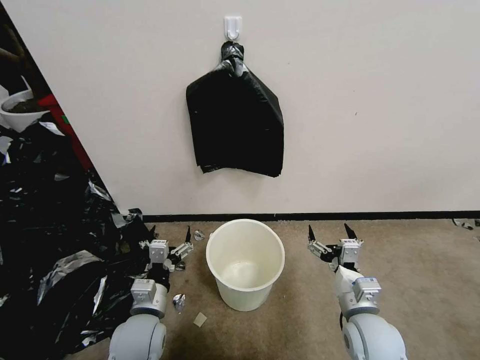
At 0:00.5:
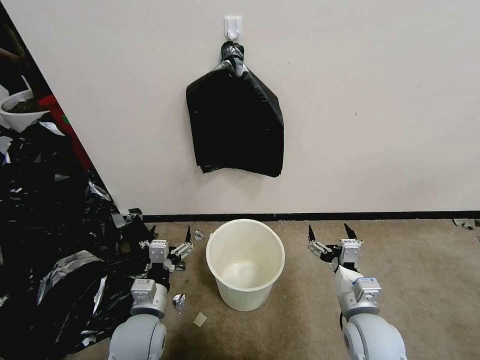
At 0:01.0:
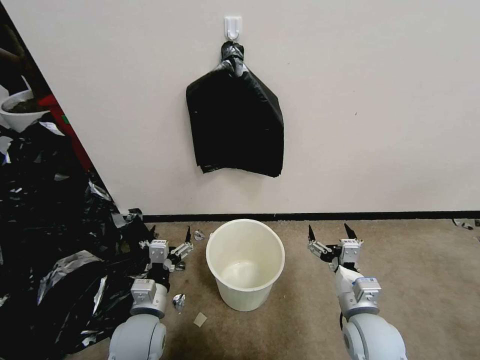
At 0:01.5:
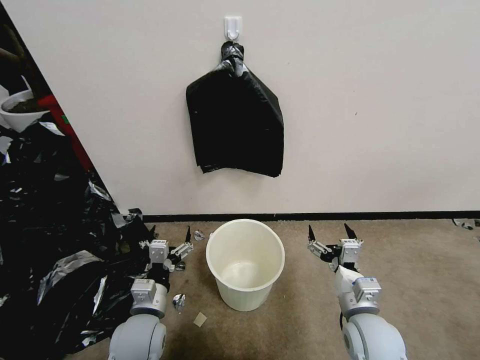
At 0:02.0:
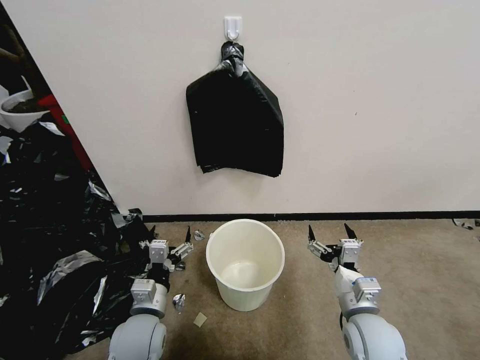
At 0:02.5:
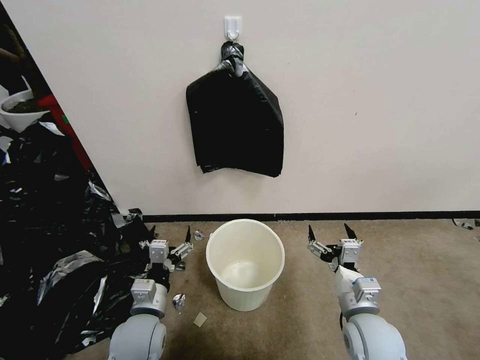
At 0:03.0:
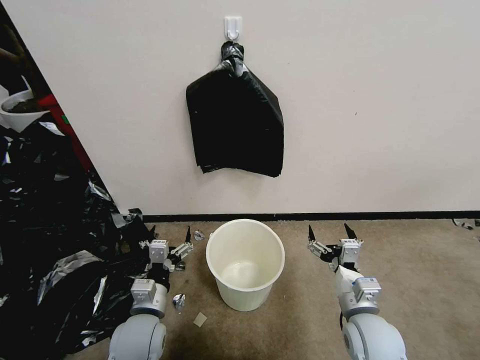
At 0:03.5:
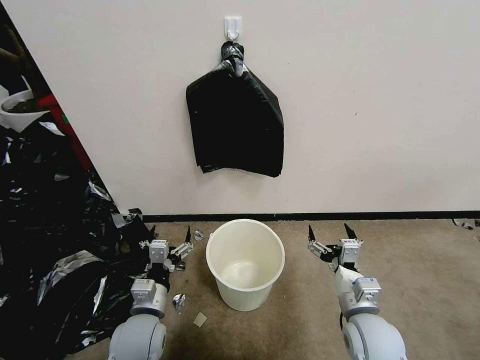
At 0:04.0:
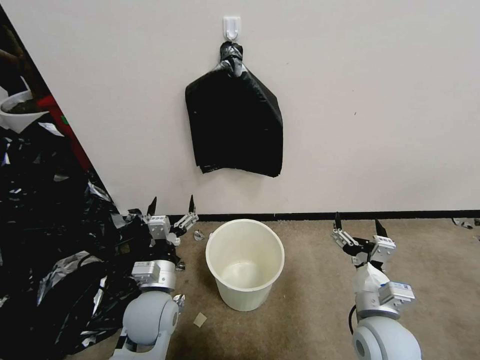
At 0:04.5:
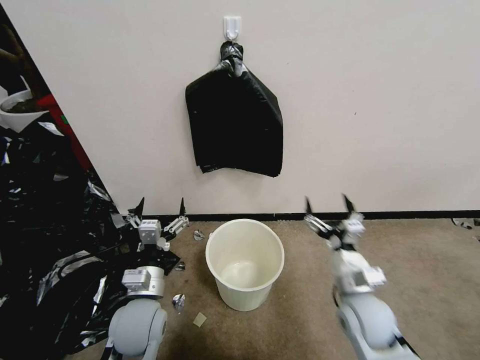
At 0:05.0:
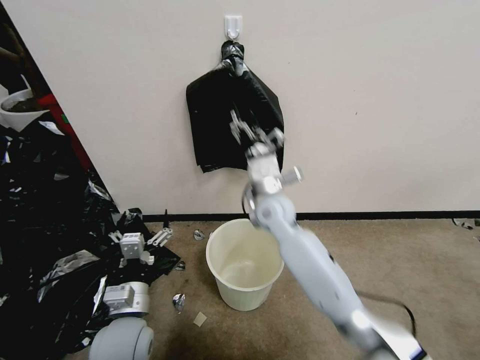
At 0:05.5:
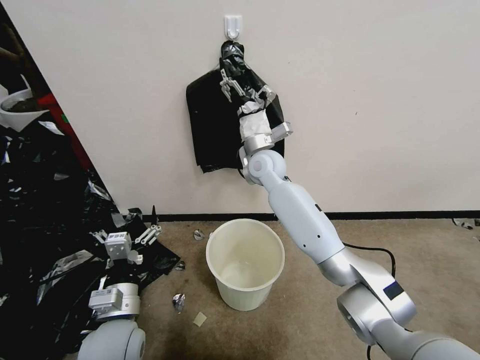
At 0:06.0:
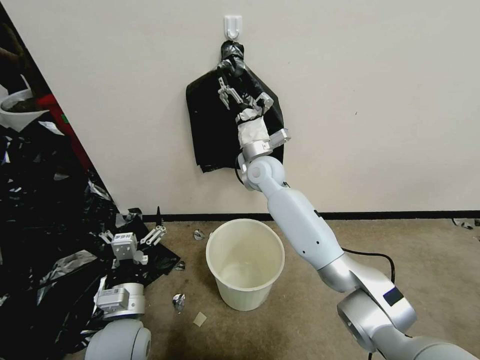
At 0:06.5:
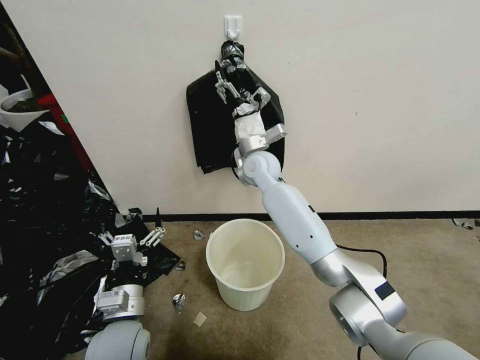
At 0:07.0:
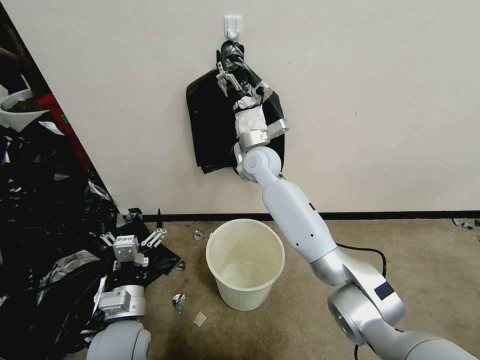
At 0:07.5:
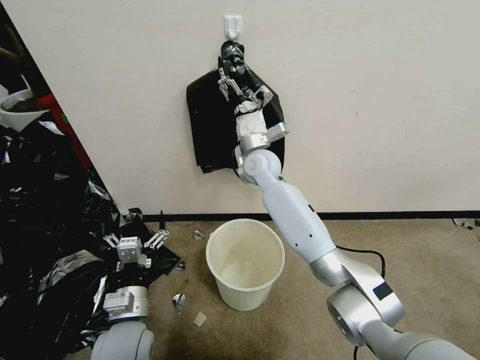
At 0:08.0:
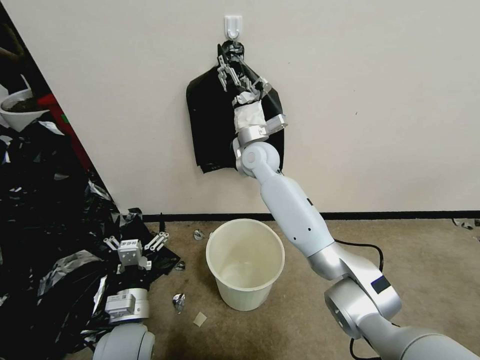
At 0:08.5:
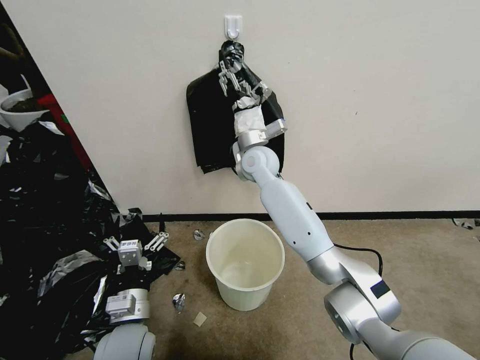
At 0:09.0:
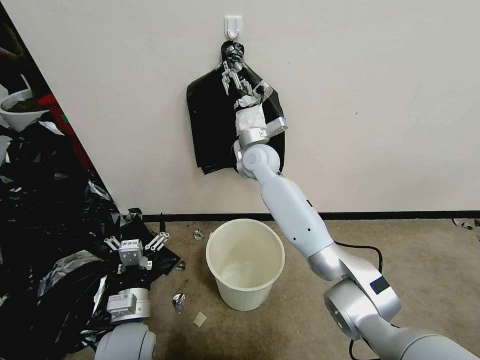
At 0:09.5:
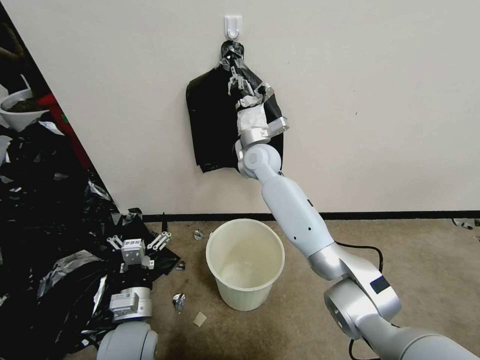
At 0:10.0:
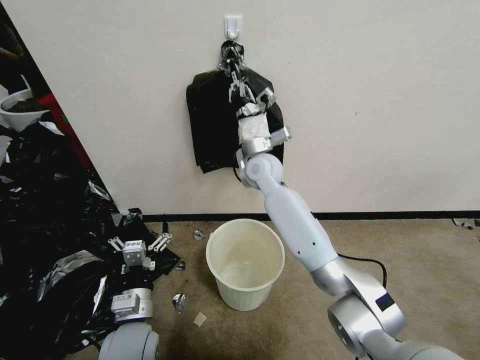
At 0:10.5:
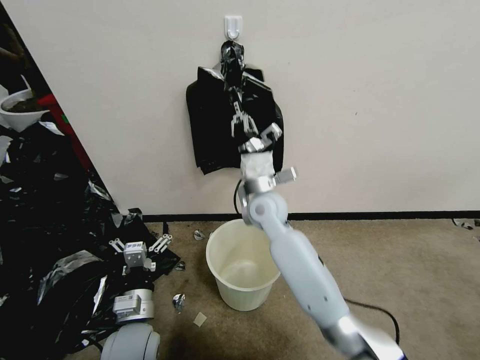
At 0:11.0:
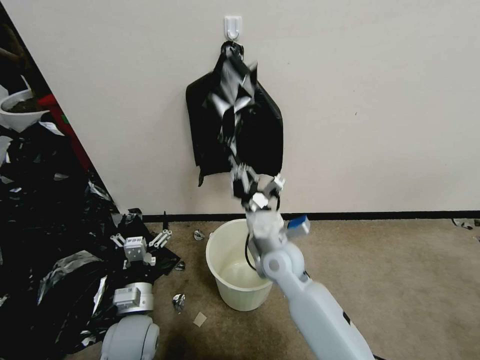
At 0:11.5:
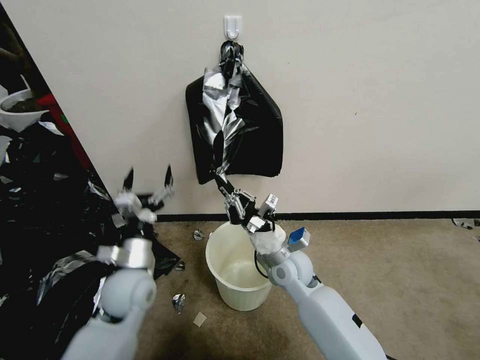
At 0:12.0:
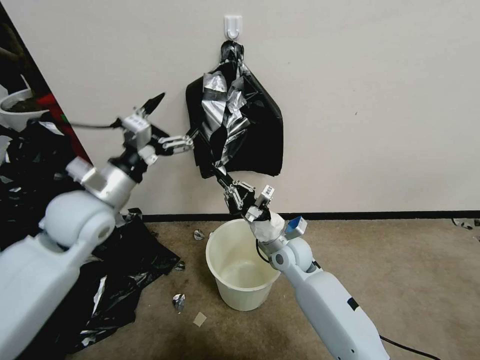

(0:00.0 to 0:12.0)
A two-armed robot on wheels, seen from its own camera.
Task of the whole recording: Place a trash bag onto the trash bin.
0:02.0 - 0:04.0: The left gripper changes place by some 5 cm.
0:04.0 - 0:06.0: The left gripper shifts roughly 5 cm backward. The right gripper travels forward and to the left by about 40 cm.
0:06.0 - 0:08.0: The grippers make only small movements.
0:08.0 - 0:10.0: The right gripper closes.
0:10.0 - 0:12.0: The right gripper shifts roughly 20 cm backward, downward and to the right; the left gripper shifts about 25 cm upward and forward.

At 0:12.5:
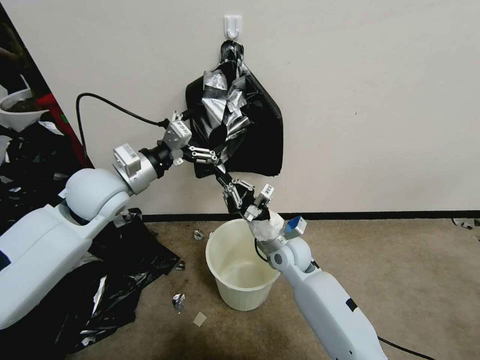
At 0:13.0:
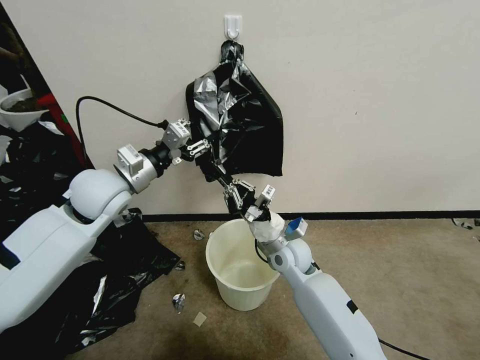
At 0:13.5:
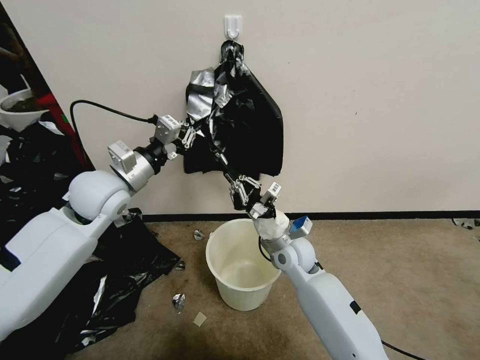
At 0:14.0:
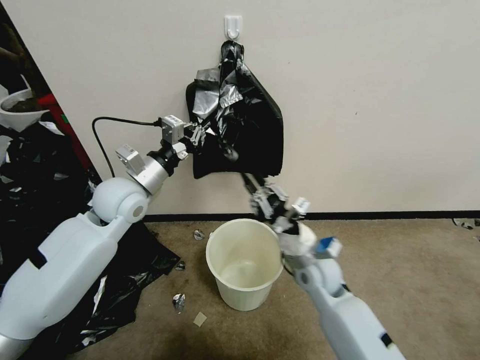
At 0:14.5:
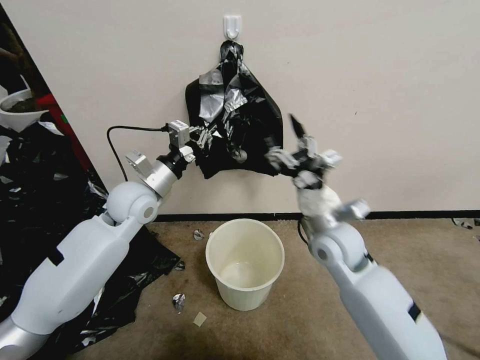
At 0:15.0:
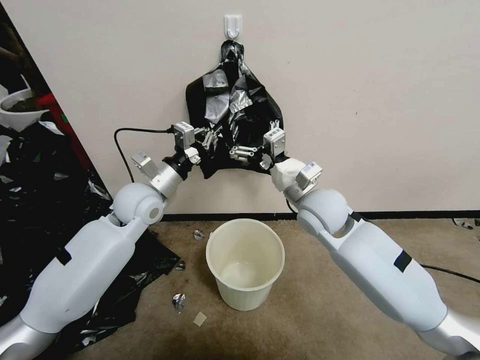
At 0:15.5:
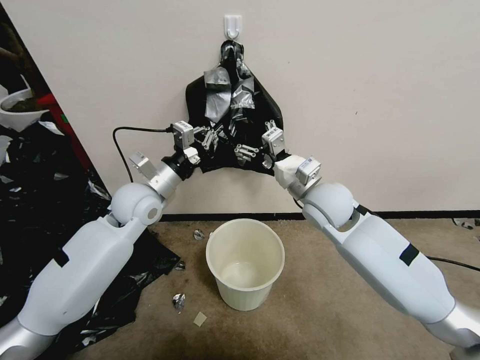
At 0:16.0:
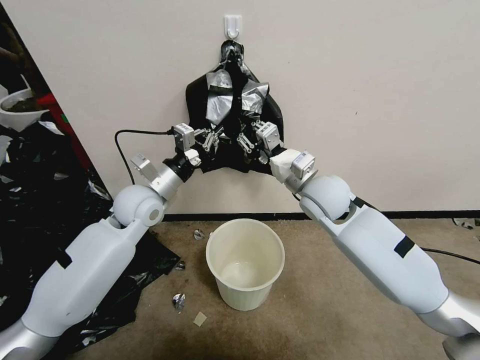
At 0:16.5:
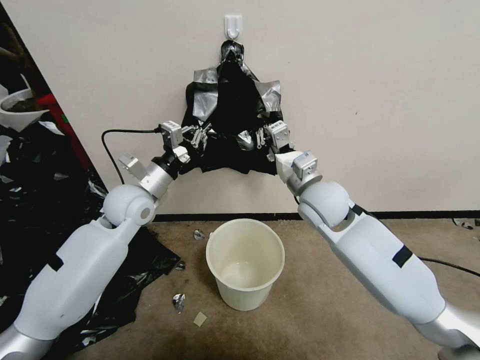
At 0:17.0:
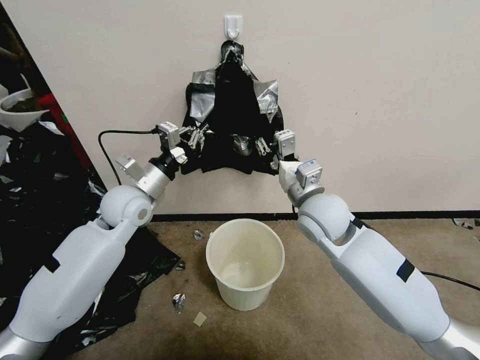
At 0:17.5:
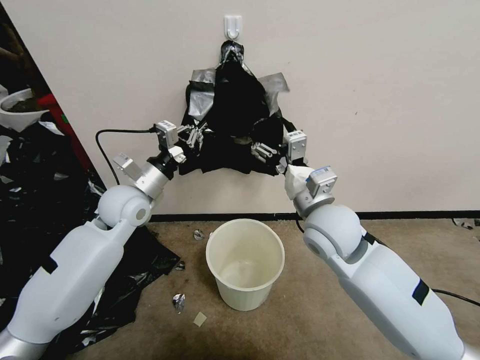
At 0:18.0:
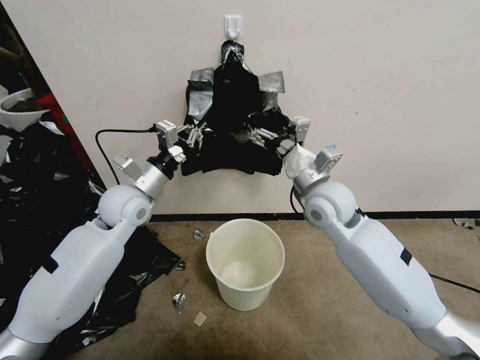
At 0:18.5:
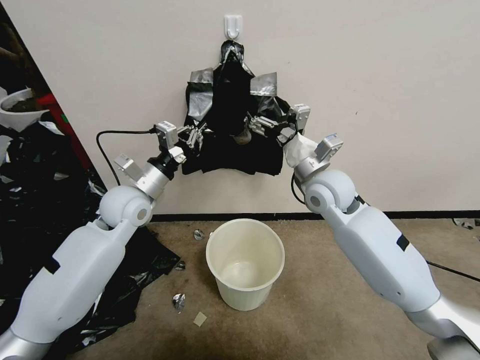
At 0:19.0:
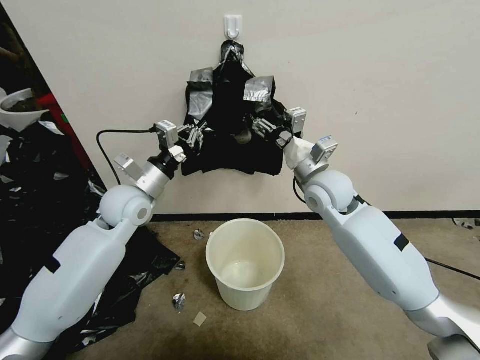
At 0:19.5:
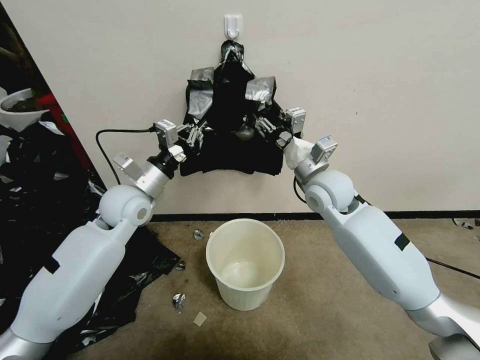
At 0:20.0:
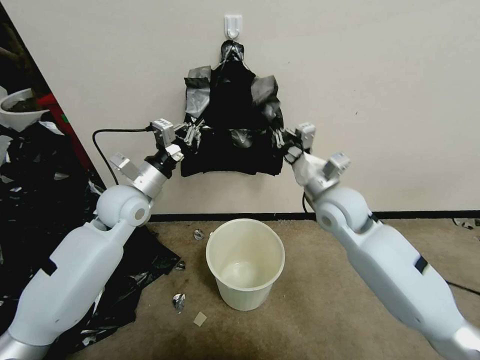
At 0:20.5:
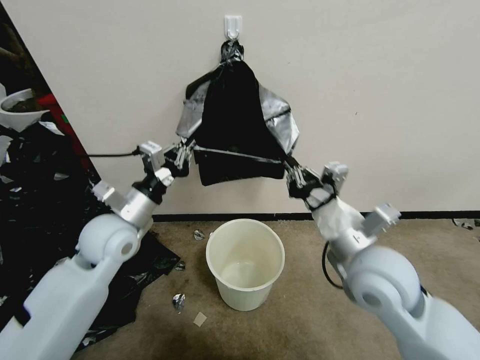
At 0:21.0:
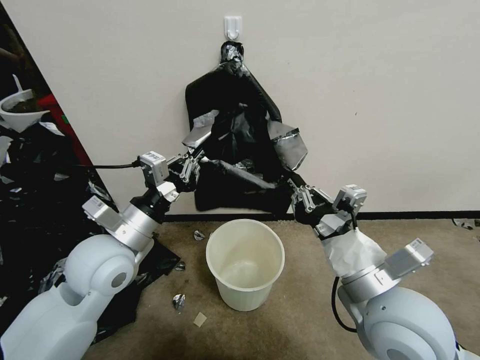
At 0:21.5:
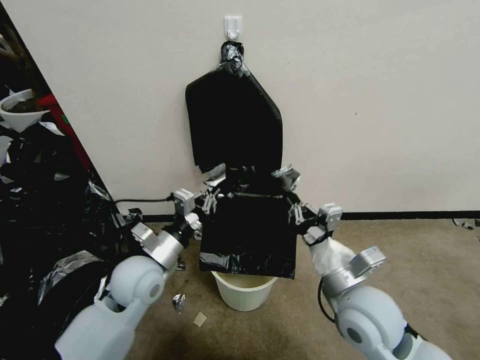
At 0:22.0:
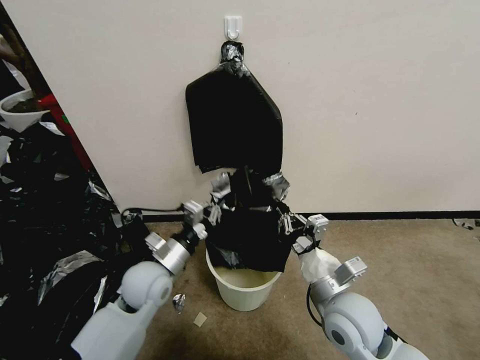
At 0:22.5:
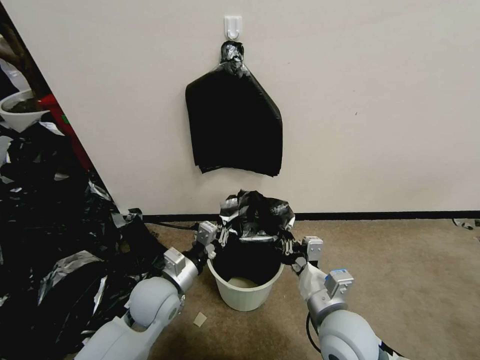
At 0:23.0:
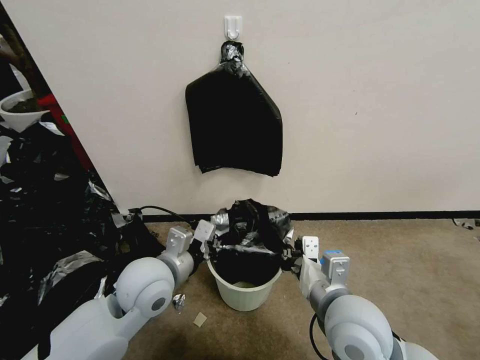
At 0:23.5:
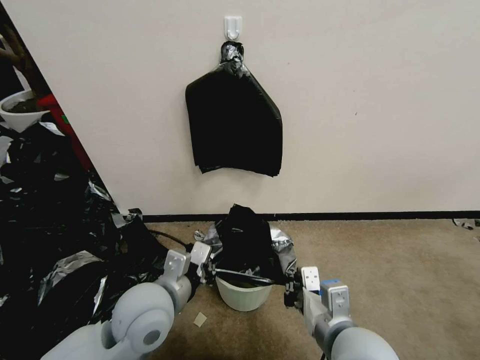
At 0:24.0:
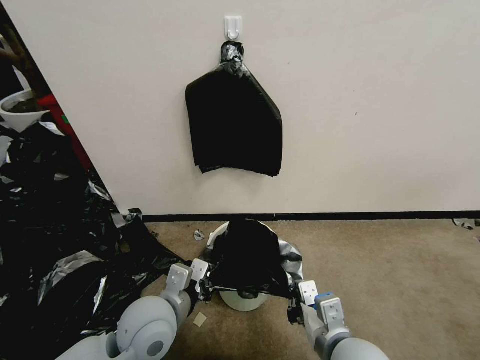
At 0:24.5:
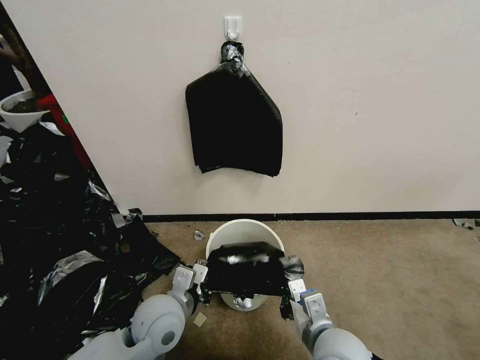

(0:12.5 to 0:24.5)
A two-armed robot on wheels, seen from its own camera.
Task of the whole recording: Place a trash bag onto the trash bin.
0:12.5 - 0:14.5: The right gripper goes about 15 cm upward and to the right, and opens its fingers. The left gripper heads downward, covering about 5 cm, and closes.
0:14.5 - 0:16.5: The right gripper moves forward and upward, roughly 10 cm, and closes.
0:16.5 - 0:18.5: The right gripper travels backward and back again, about 5 cm each way, and opens its fingers.
0:18.5 - 0:20.5: The right gripper travels backward by approximately 20 cm, and closes. The left gripper heads backward, covering roughly 5 cm.
0:20.5 - 0:22.5: The left gripper is displaced downward, backward and to the right by some 15 cm. The right gripper is displaced downward and backward by some 15 cm.
0:22.5 - 0:24.5: The right gripper travels upward and back again, some 5 cm each way; the left gripper travels upward and back again, some 10 cm each way.

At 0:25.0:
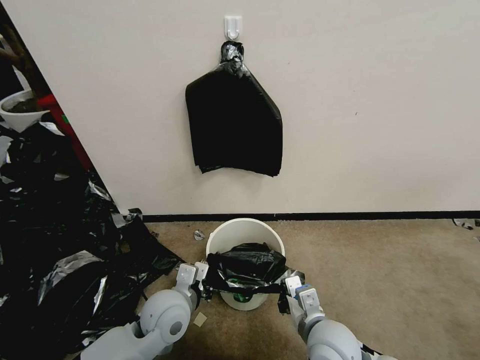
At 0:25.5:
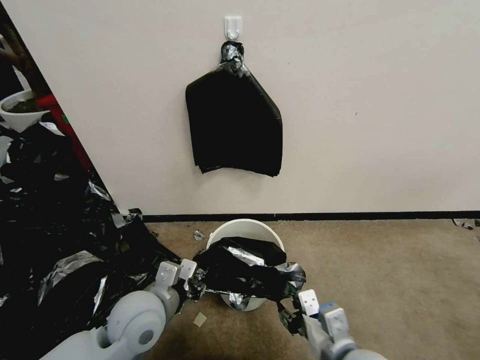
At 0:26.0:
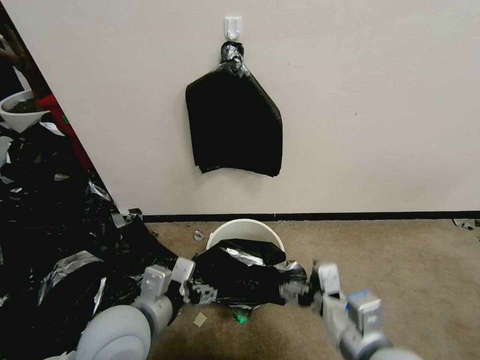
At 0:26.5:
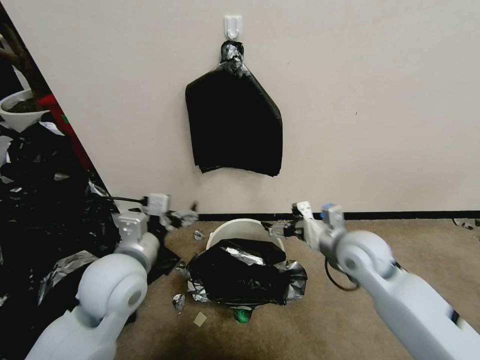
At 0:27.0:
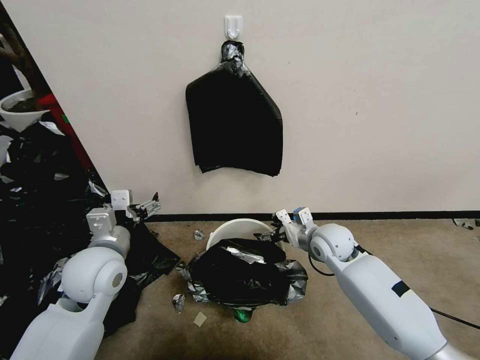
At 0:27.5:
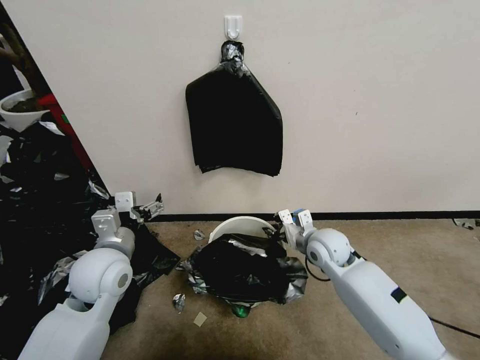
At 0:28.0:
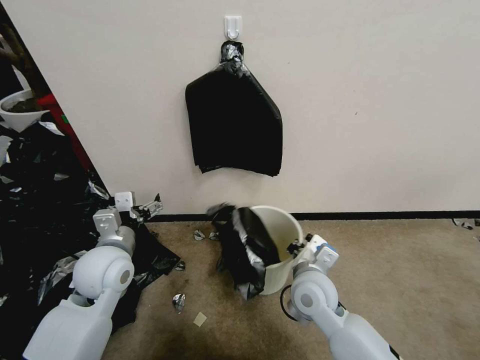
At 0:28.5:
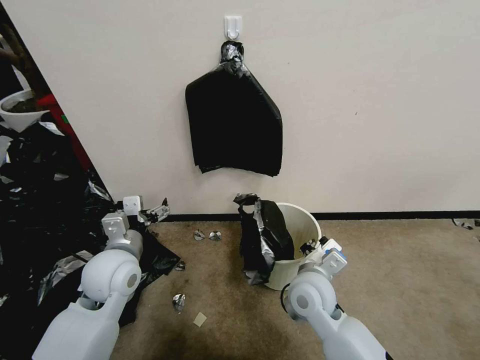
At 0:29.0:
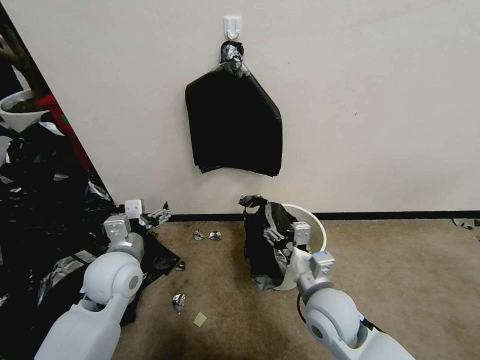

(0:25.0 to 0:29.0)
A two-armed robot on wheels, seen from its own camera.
Task of the whole recording: Place a trash bag onto the trash bin.
0:25.0 - 0:27.0: The right gripper travels forward by about 20 cm, and opens its fingers. The left gripper moves to the left and upward, about 15 cm, and opens.
0:27.0 - 0:29.0: The right gripper moves backward, roughly 15 cm, and closes, then opens again.
